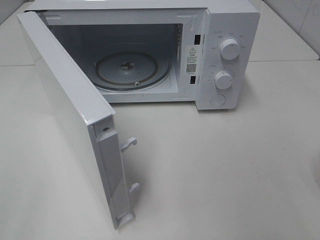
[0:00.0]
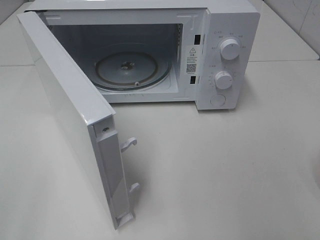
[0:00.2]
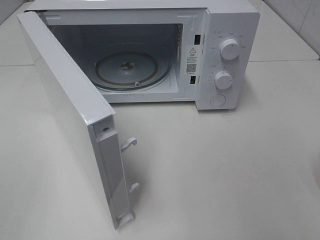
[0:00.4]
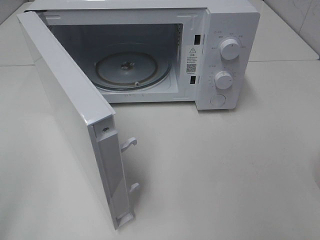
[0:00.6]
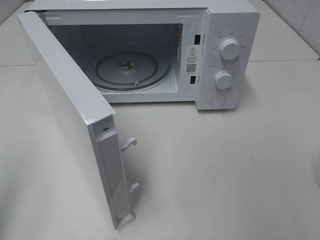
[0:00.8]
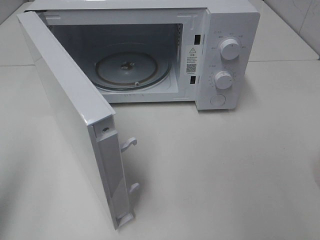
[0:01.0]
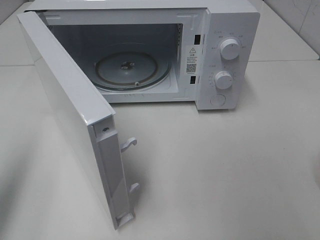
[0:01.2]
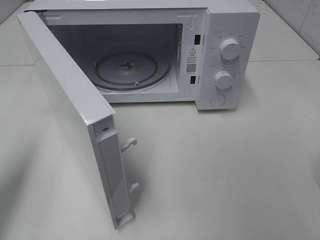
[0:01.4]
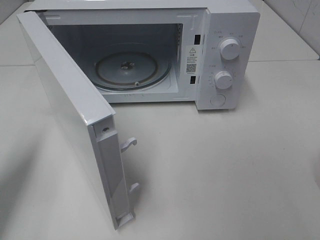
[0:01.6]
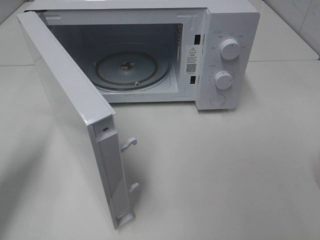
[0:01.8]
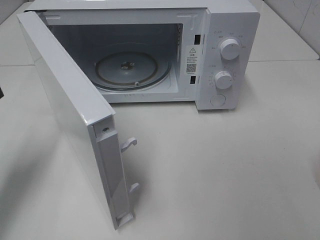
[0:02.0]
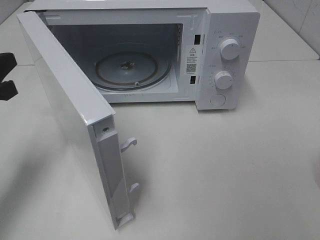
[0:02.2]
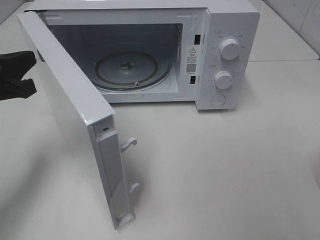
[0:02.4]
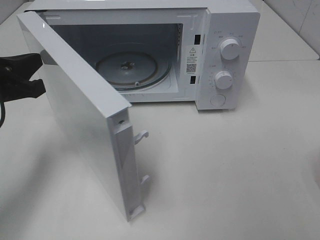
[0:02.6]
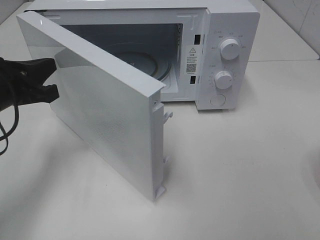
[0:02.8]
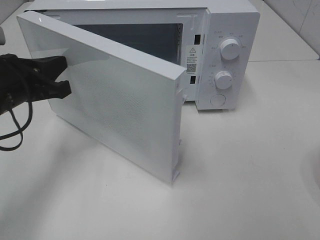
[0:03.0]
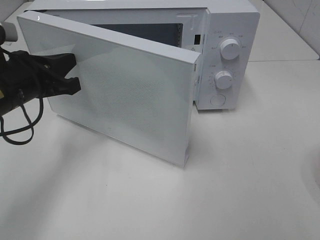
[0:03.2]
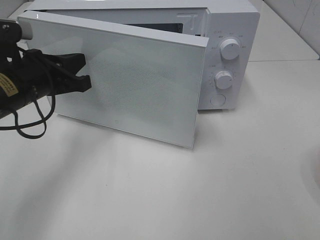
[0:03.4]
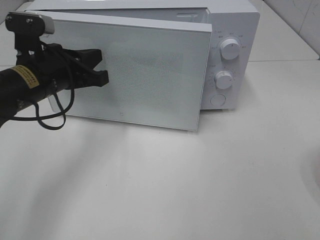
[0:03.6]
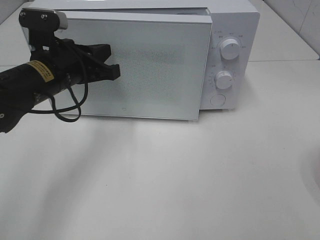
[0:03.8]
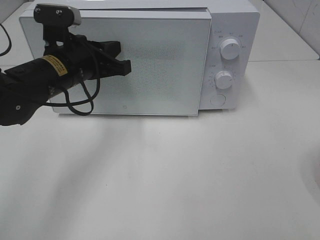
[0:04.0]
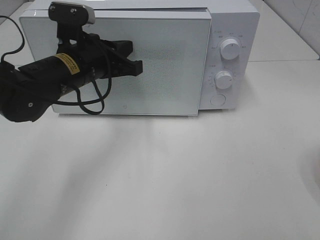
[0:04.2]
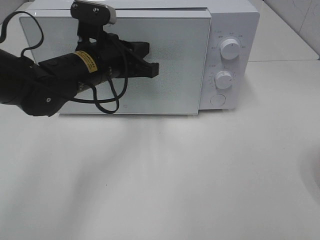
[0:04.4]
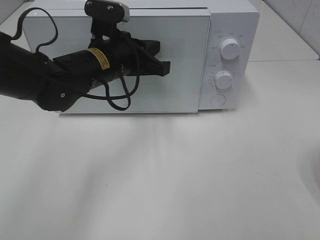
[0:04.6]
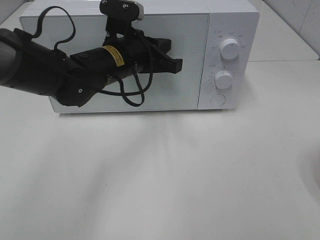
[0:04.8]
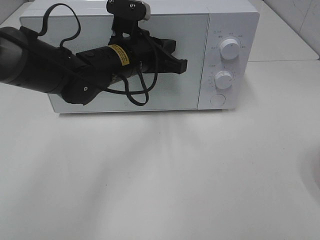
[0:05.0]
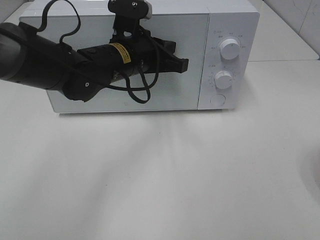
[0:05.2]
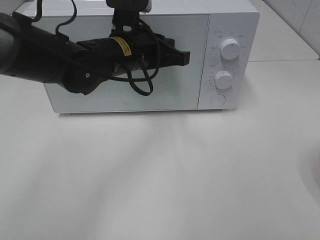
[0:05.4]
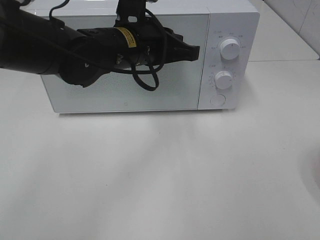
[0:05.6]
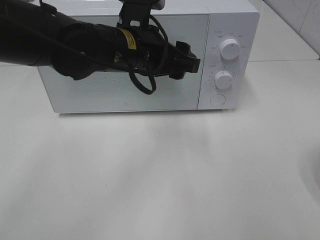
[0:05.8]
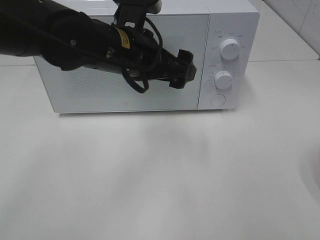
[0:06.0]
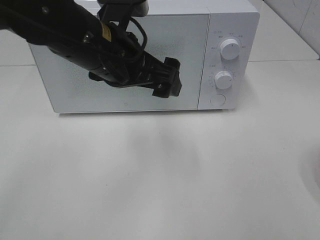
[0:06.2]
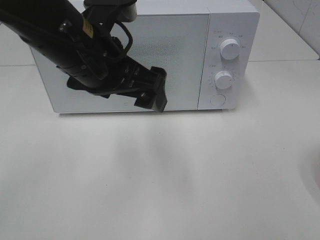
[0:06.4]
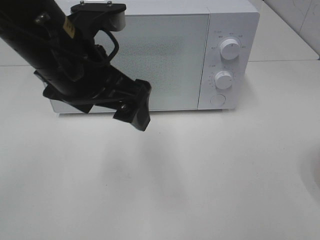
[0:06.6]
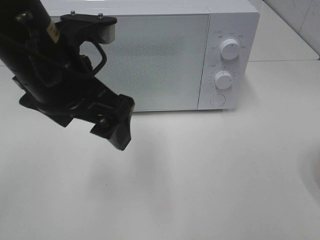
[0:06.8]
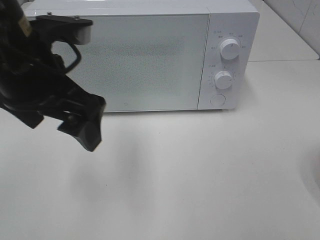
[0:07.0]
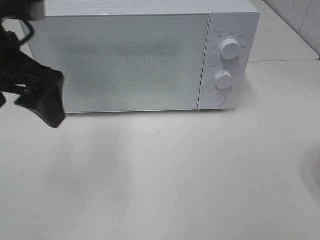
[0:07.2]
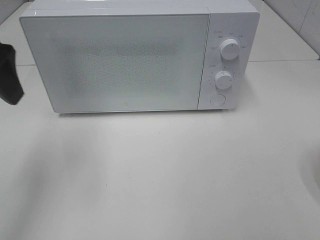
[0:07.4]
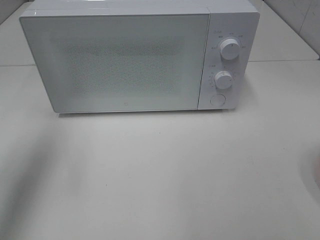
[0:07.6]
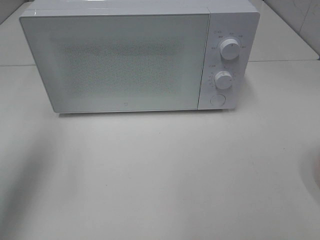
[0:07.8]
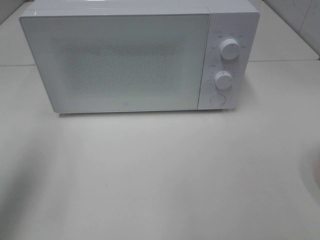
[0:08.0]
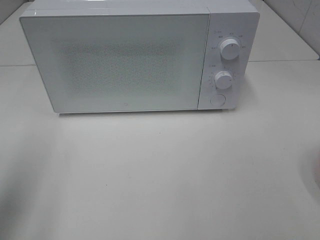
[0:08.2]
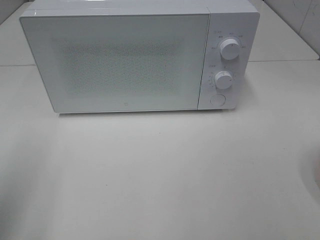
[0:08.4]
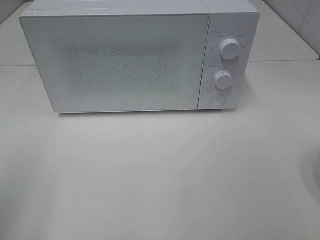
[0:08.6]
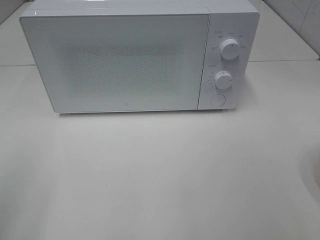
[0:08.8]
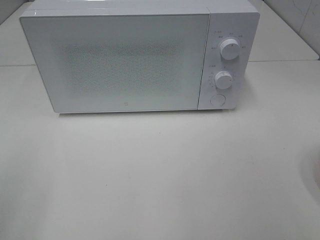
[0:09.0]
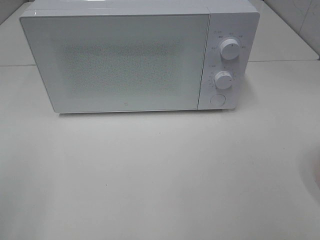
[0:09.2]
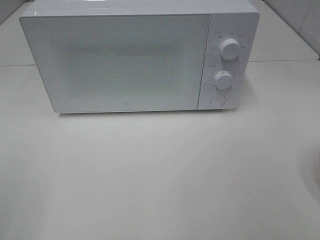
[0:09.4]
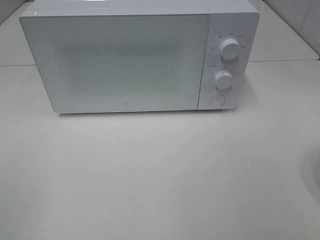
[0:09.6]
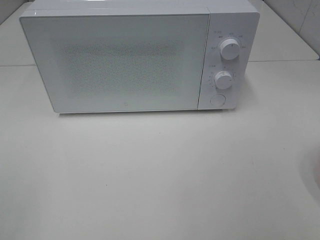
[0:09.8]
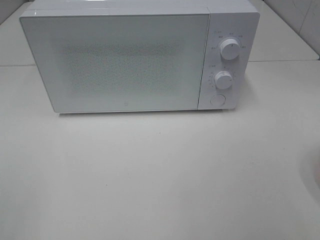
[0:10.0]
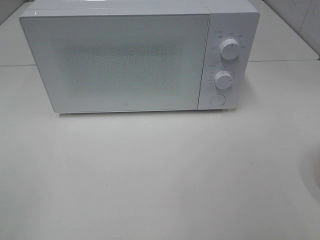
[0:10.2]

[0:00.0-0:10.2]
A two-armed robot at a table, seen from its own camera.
Task of the whole recording: Heat the burger.
Step, 0:00.0 to 0:05.2: Left hand: close the microwave door.
0:00.0 to 0:01.4: The left gripper moves forward, some 15 cm, and closes up.
0:01.4 to 0:03.0: The left gripper goes roughly 15 cm forward, to the right and downward.
0:03.0 to 0:04.4: The left gripper moves to the right and forward, about 15 cm.
0:04.4 to 0:05.8: The left gripper moves to the right, approximately 5 cm, and opens up.
0:05.8 to 0:07.2: The left gripper heads to the left, upward and backward, covering approximately 20 cm.
0:07.2 to 0:08.8: The left gripper travels backward and to the left by approximately 20 cm.
